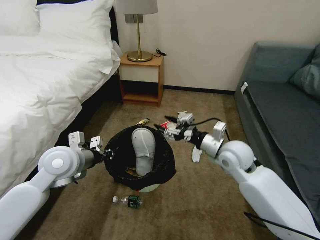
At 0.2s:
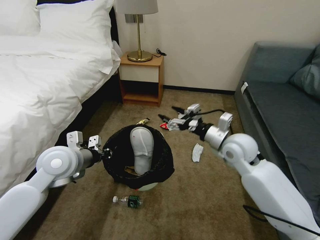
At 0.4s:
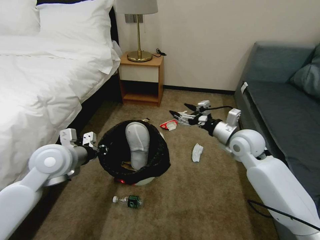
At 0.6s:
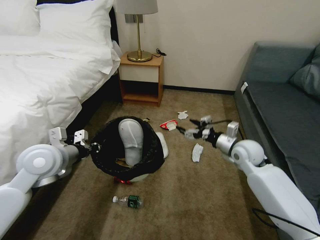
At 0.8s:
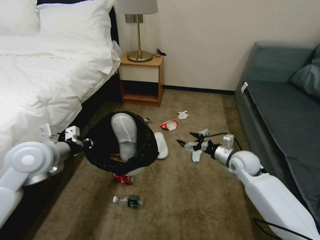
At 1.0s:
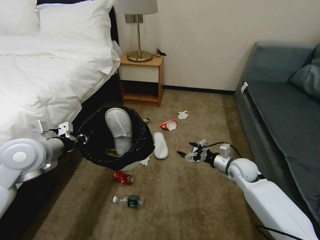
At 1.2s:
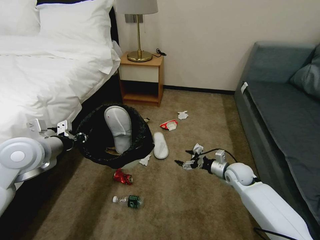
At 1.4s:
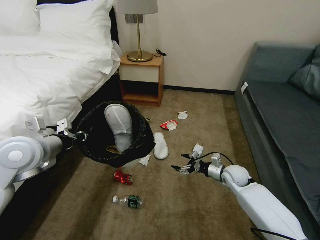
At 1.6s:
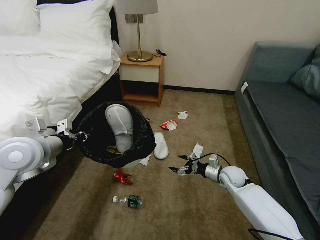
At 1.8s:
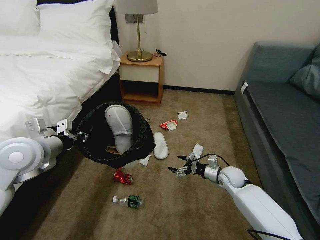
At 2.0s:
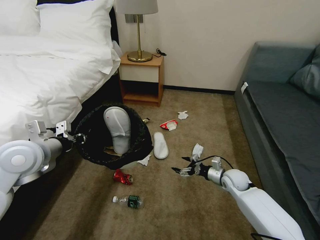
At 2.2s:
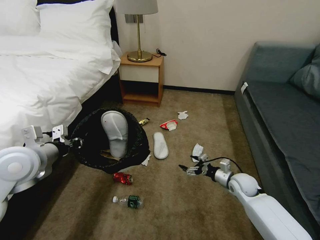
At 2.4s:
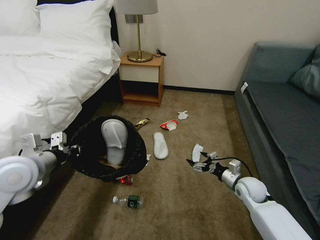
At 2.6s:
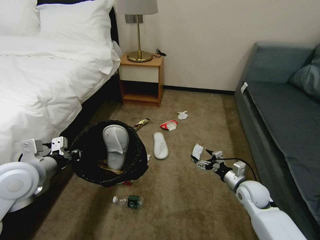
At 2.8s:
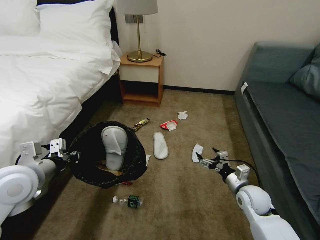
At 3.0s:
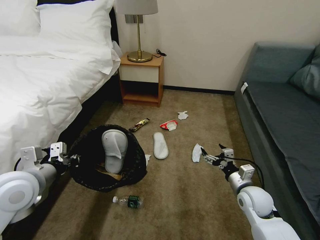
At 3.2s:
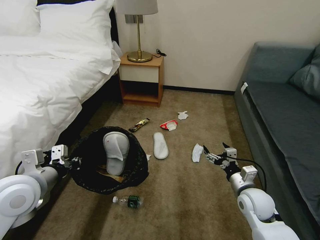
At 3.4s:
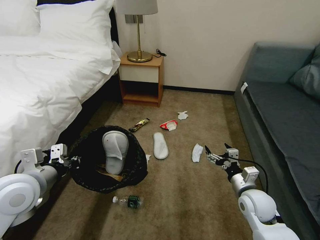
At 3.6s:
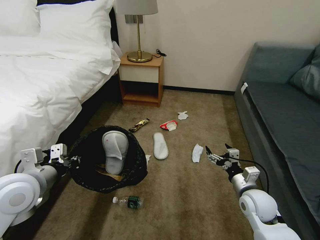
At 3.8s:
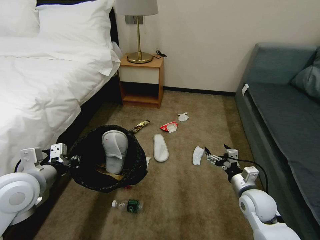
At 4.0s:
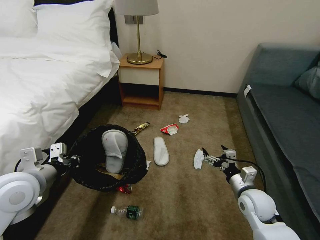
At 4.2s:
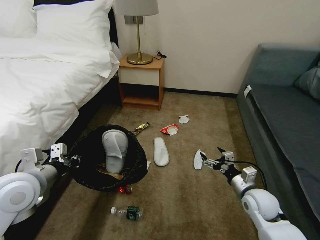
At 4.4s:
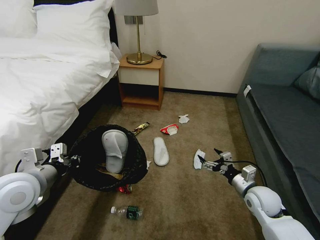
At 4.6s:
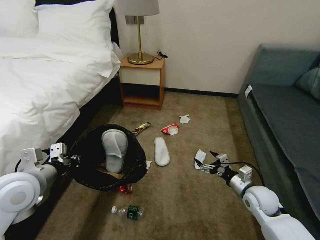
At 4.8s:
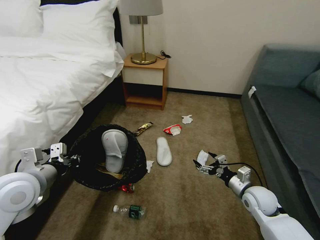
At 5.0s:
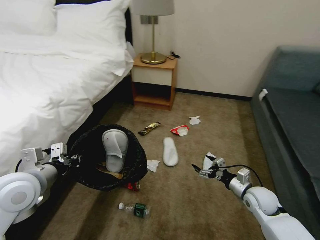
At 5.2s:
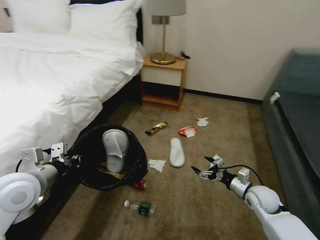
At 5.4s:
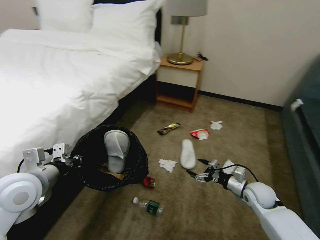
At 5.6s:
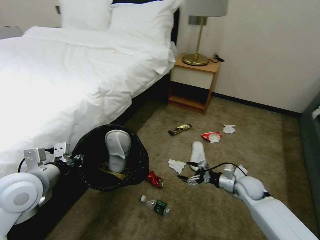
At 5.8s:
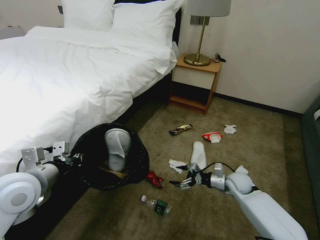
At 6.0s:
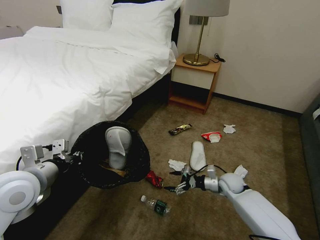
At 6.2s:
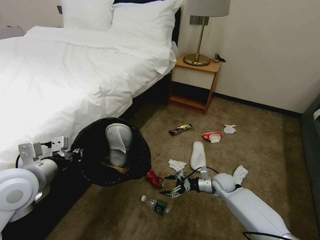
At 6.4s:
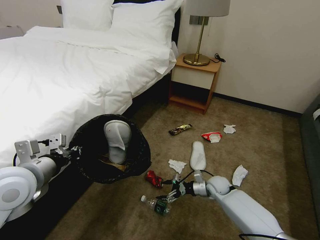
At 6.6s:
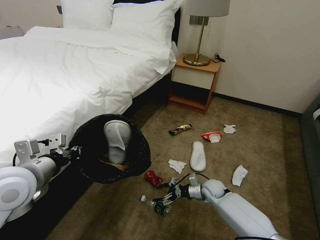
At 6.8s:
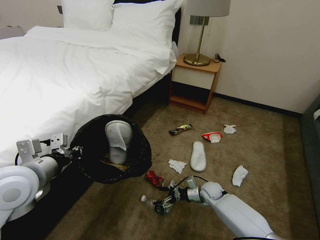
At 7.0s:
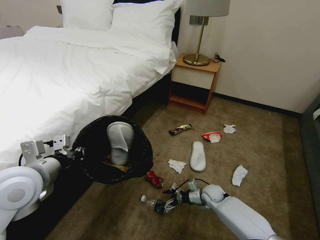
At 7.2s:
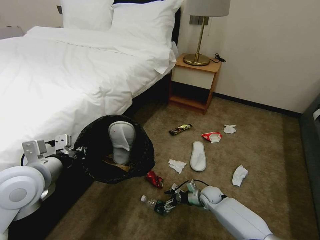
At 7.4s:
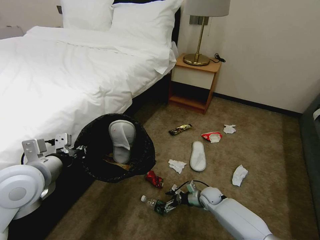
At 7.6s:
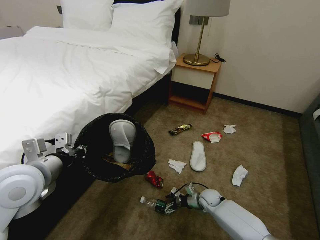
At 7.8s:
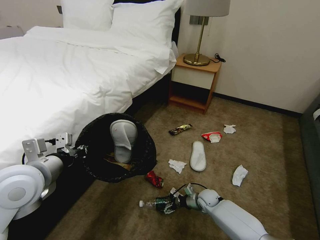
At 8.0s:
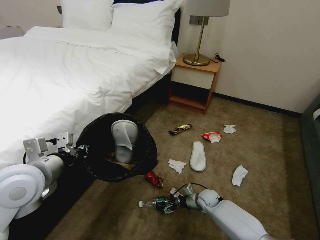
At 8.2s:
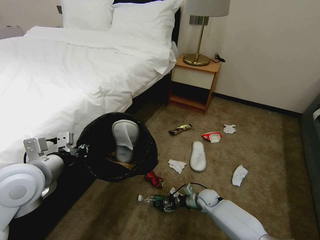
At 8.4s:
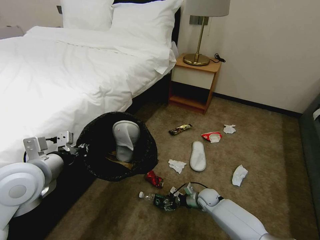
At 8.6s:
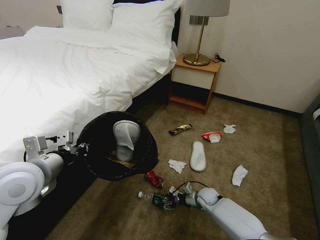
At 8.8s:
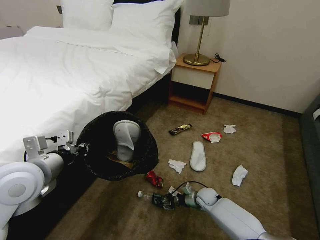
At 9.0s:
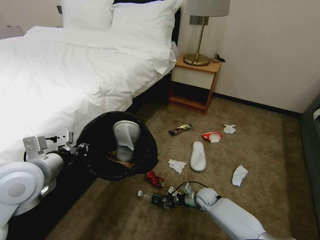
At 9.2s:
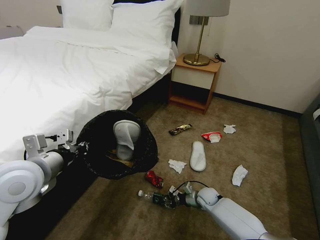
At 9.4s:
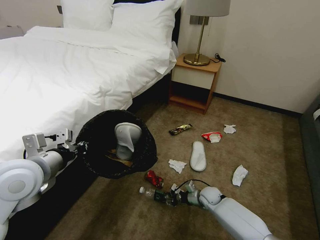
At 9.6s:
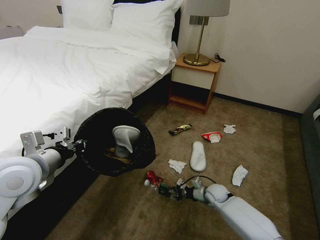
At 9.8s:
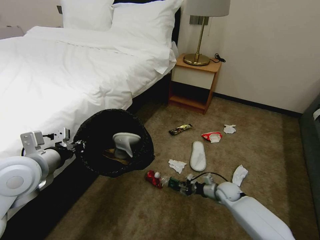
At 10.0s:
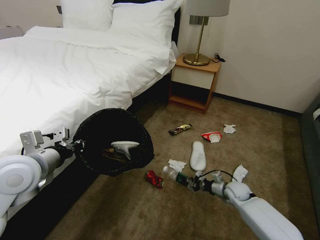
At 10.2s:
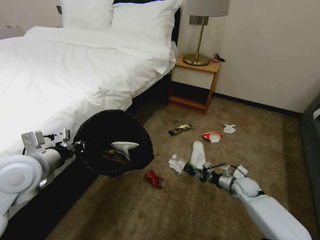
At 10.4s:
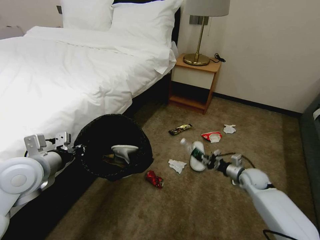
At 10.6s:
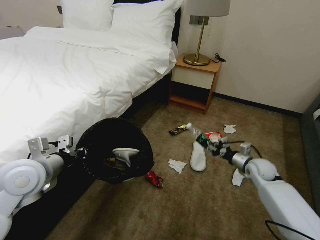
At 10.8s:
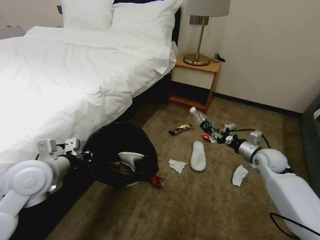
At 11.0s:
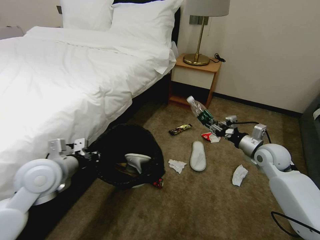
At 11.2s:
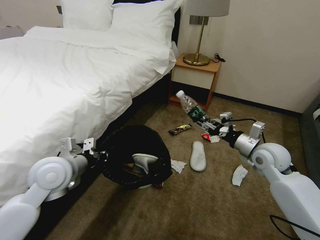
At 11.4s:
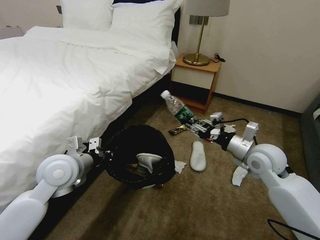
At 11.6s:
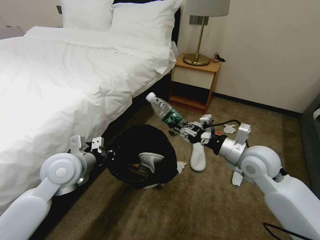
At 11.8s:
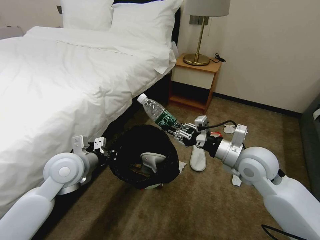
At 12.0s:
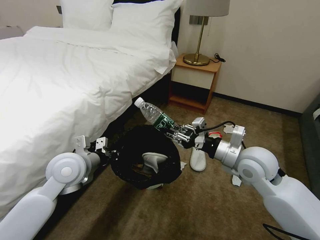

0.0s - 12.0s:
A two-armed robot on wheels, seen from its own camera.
Task of the whole recording: Pick up the trash bin, then pick up the garbage on the floor and place it into the trash bin.
0.0s - 1.6s: The left gripper goes about 10 cm to the left and upward; the right gripper goes approximately 20 cm downward.
1.6s - 3.0s: The right gripper heads backward, covering approximately 10 cm, while the left gripper goes about 5 cm backward.
3.0s - 4.4s: The grippers stay close to where they were, moving slightly.
4.4s - 6.0s: The right gripper is displaced forward and downward by some 15 cm.
6.0s - 7.6s: The right gripper goes about 10 cm downward and to the left.
7.6s - 9.0s: The right gripper closes up.
9.0s - 10.4s: The right gripper travels to the right and upward by roughly 20 cm.
10.4s - 12.0s: The right gripper shifts approximately 25 cm upward and to the left; the left gripper goes roughly 10 cm to the right.

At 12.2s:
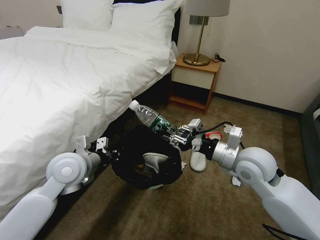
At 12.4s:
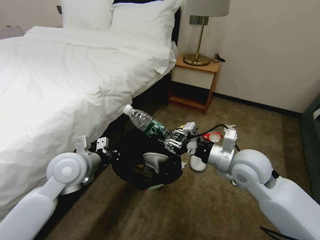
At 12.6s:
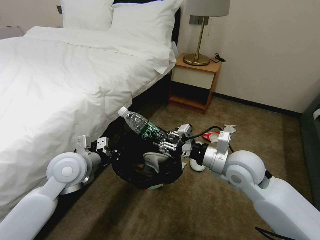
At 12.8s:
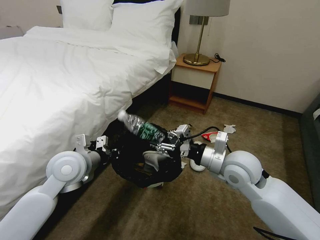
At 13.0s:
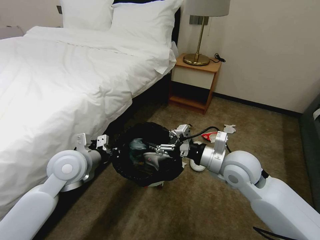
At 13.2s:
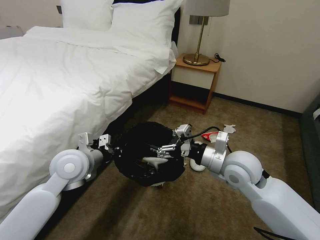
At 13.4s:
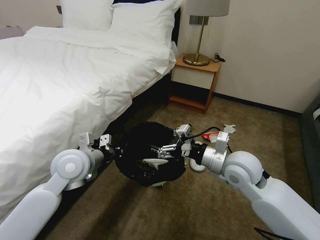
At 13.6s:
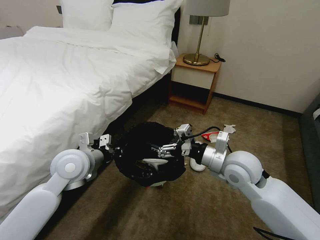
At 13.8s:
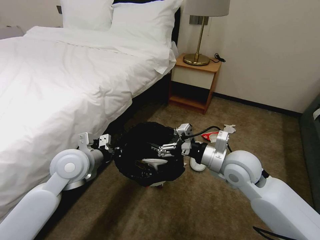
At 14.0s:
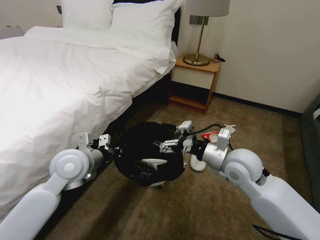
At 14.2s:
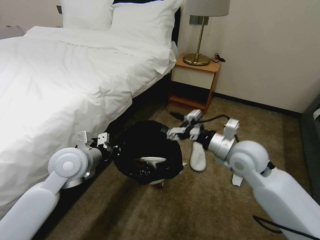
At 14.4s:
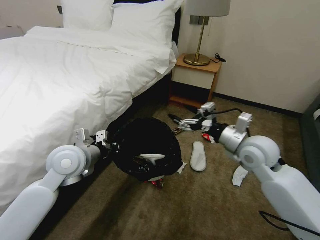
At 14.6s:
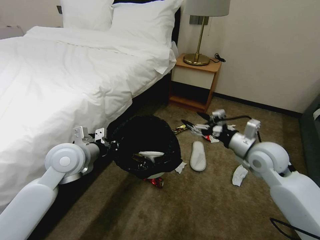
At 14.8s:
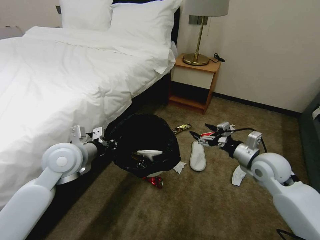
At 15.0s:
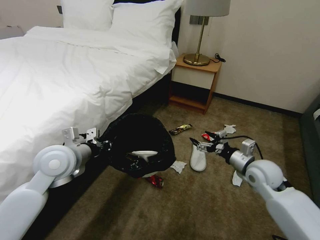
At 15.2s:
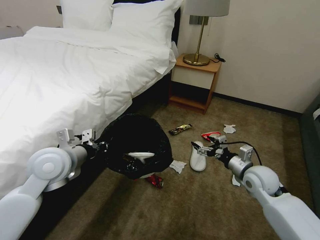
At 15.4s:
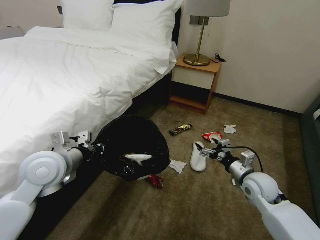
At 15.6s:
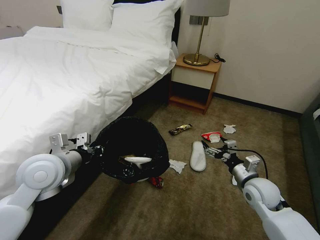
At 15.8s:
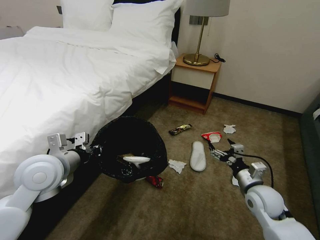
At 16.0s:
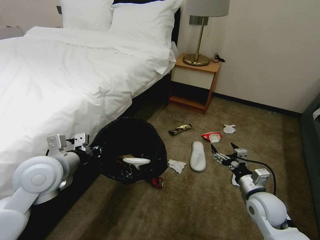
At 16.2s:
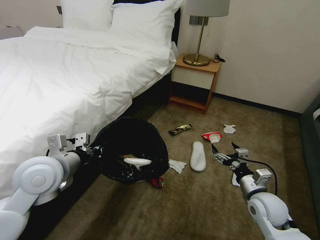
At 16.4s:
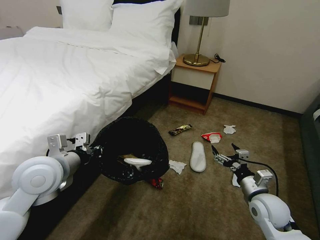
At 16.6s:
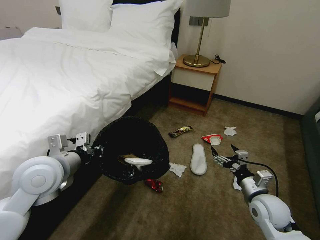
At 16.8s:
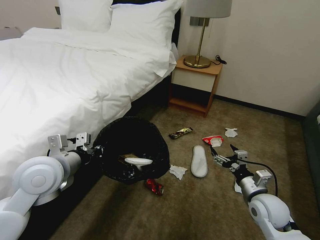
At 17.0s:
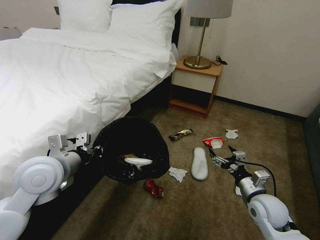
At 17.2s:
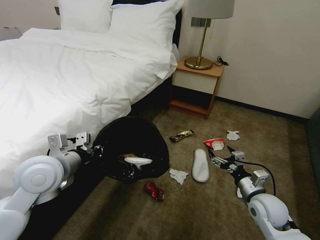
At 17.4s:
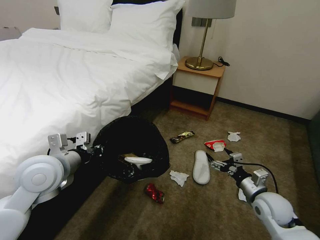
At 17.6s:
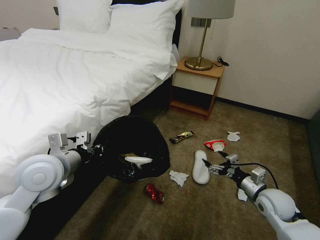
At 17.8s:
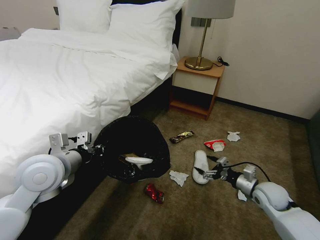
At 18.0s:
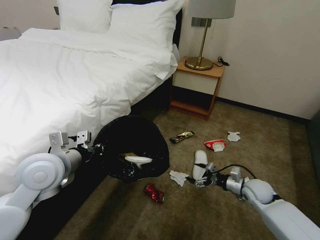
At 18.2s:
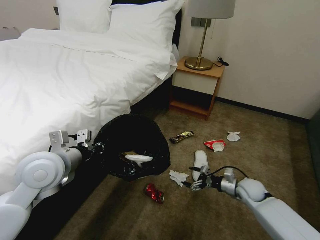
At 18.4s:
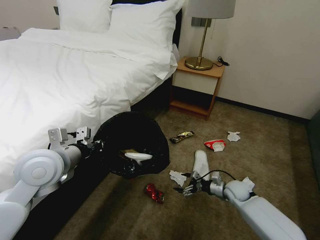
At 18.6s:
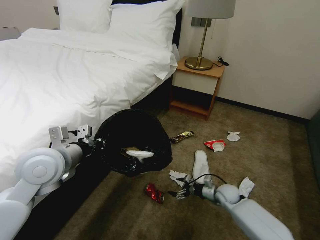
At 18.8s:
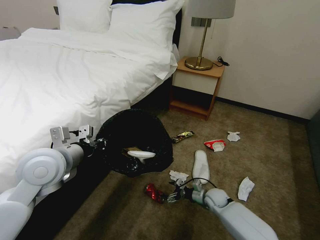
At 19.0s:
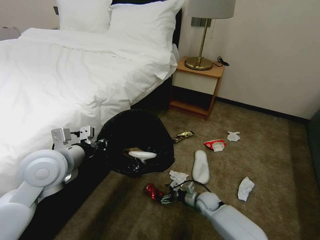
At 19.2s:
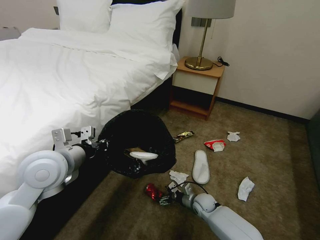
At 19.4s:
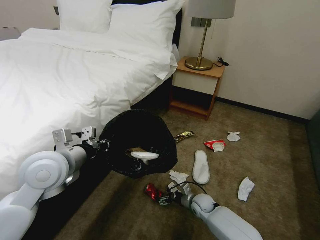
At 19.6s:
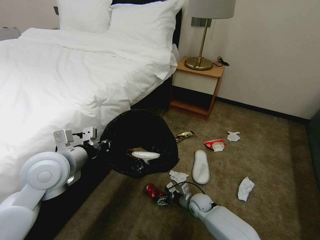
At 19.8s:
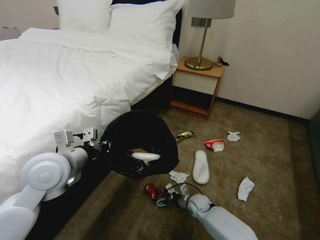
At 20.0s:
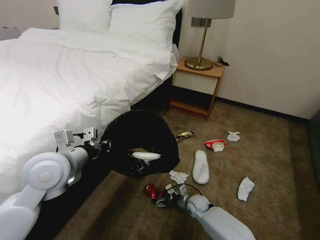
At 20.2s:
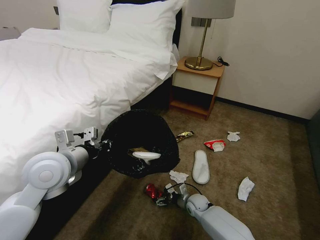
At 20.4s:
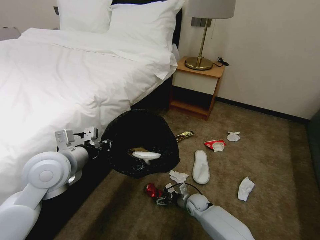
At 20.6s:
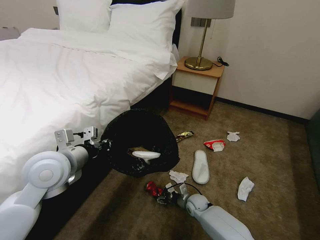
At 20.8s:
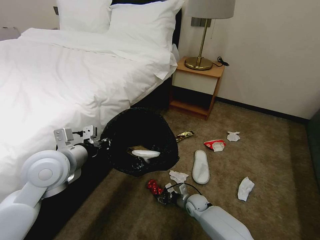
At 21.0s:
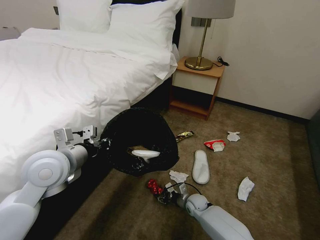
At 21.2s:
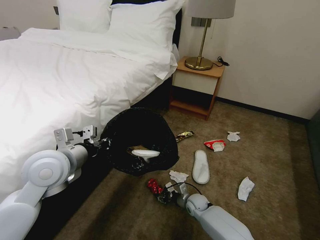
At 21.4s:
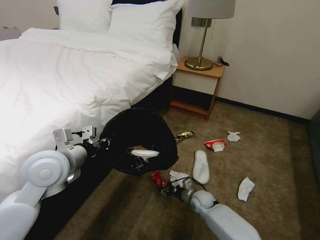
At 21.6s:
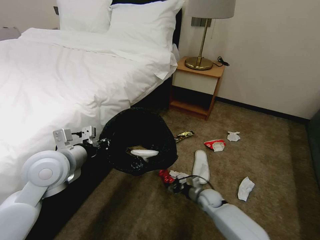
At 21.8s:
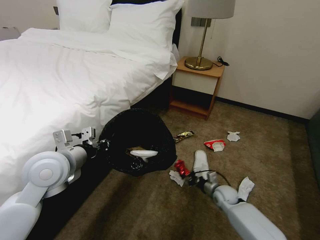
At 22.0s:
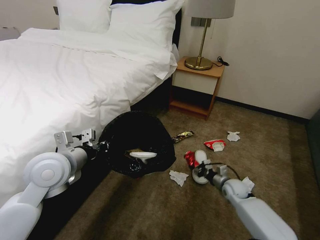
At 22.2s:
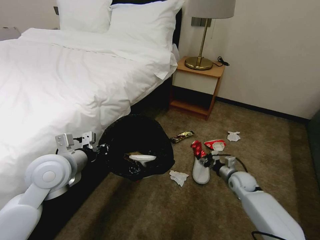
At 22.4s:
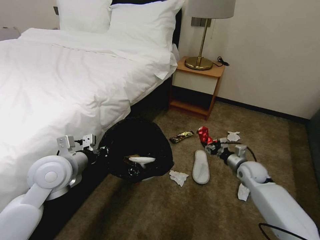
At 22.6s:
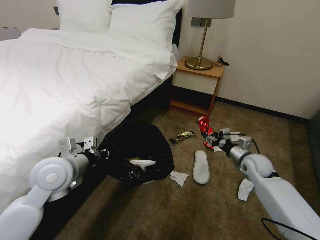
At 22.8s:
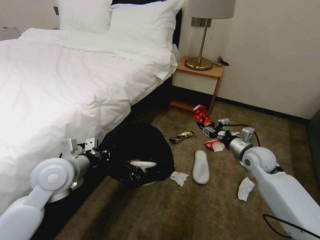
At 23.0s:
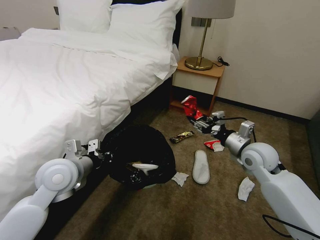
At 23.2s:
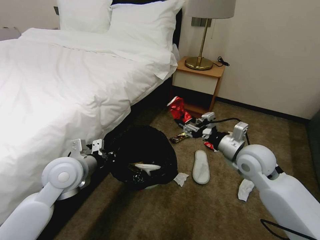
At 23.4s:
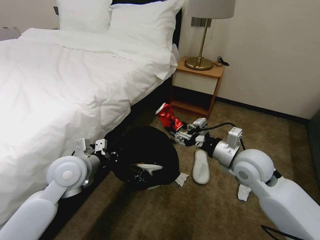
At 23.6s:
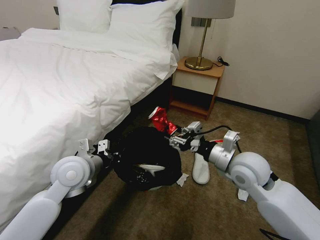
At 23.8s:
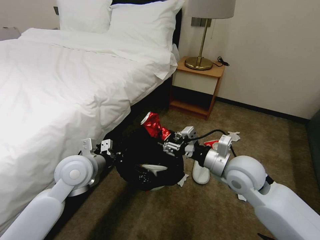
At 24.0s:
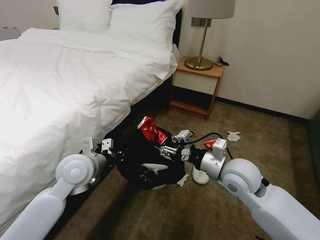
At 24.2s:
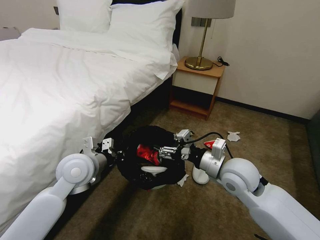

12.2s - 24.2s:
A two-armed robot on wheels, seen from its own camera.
Task of the whole recording: Pick up the trash bin, then pick up the garbage on the floor and place it into the trash bin.
12.2s - 13.8s: The right gripper opens its fingers.
13.8s - 15.2s: The right gripper moves to the right and downward, about 15 cm.
15.2s - 16.6s: The right gripper moves backward, approximately 10 cm.
16.6s - 18.2s: The right gripper goes approximately 15 cm forward and downward.
18.2s - 19.8s: The right gripper is displaced to the left and downward by roughly 20 cm.
19.8s - 21.2s: The right gripper closes.
21.2s - 22.6s: The right gripper heads upward and to the right, covering some 30 cm.
22.6s - 24.2s: The left gripper shifts by about 5 cm. The right gripper is displaced to the left, upward and backward by roughly 20 cm.
